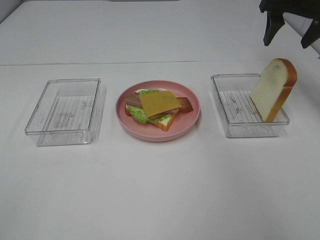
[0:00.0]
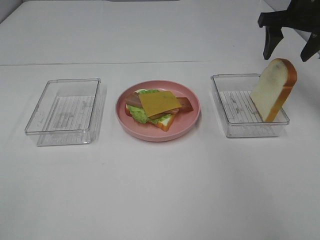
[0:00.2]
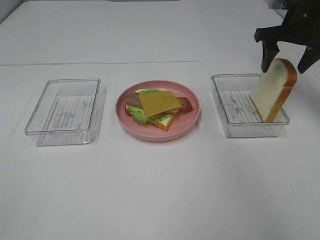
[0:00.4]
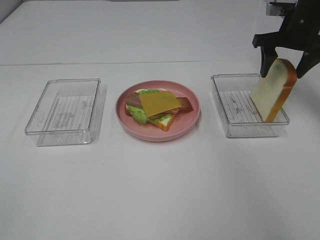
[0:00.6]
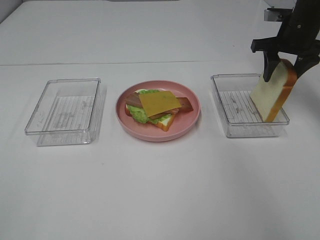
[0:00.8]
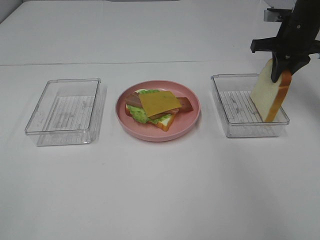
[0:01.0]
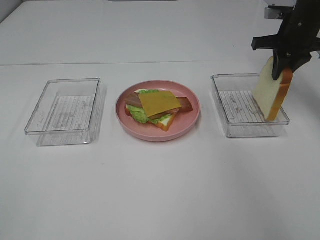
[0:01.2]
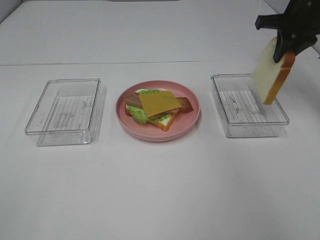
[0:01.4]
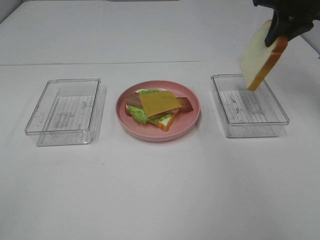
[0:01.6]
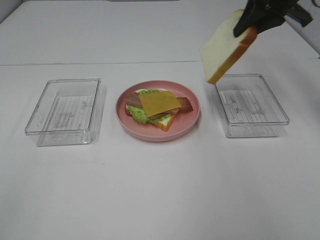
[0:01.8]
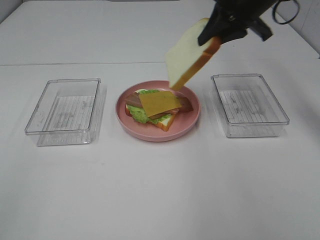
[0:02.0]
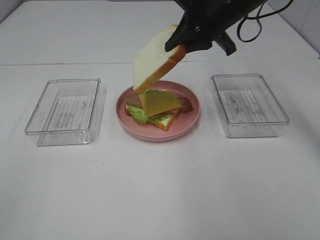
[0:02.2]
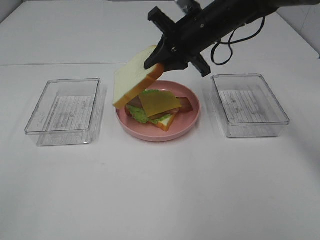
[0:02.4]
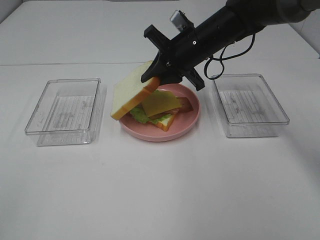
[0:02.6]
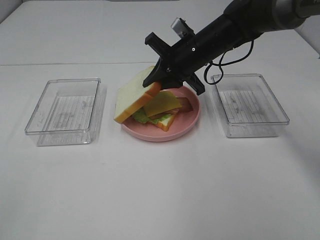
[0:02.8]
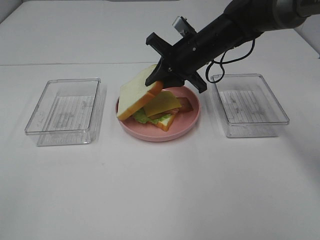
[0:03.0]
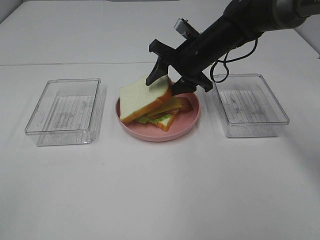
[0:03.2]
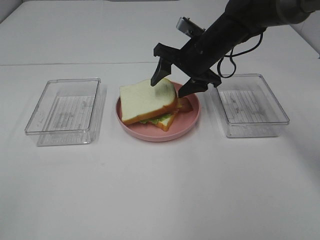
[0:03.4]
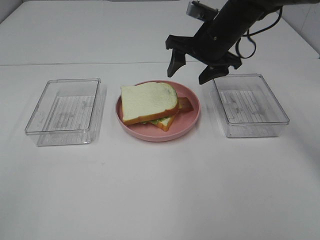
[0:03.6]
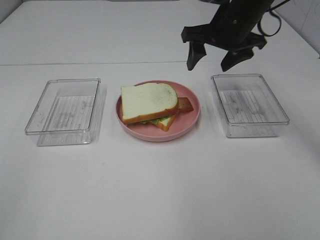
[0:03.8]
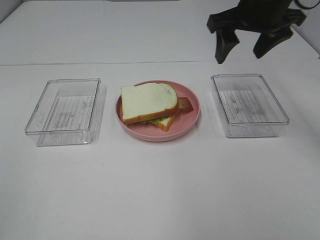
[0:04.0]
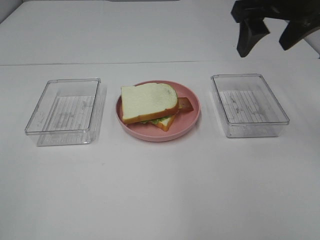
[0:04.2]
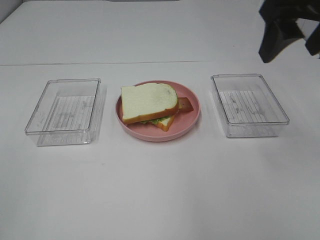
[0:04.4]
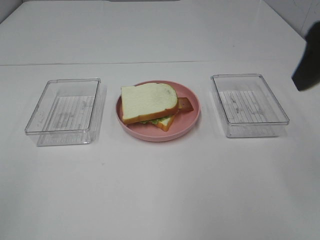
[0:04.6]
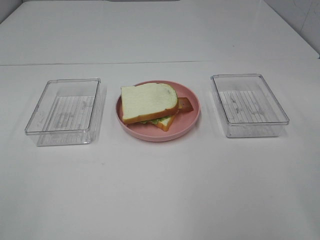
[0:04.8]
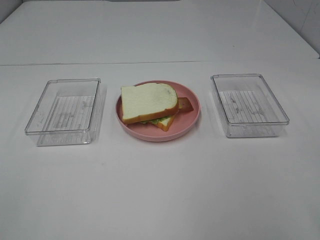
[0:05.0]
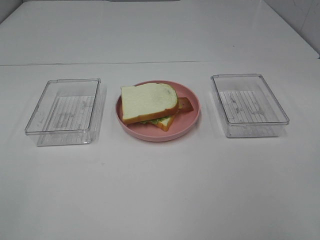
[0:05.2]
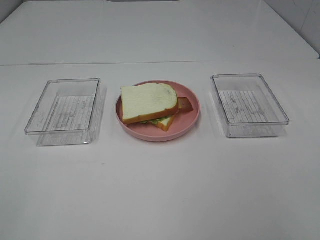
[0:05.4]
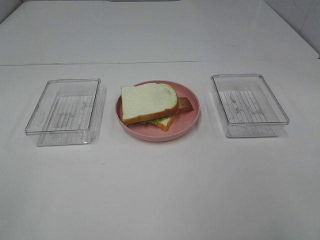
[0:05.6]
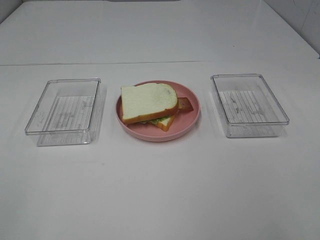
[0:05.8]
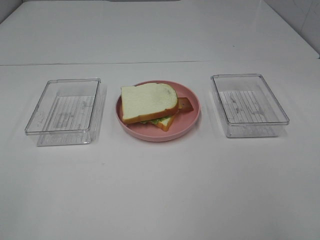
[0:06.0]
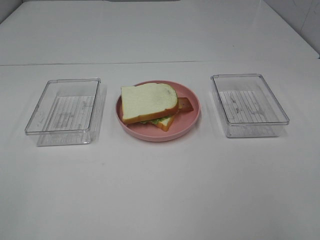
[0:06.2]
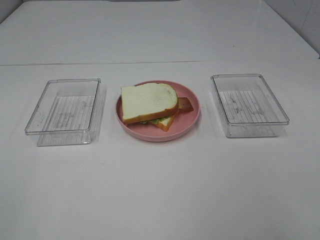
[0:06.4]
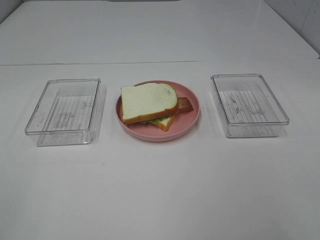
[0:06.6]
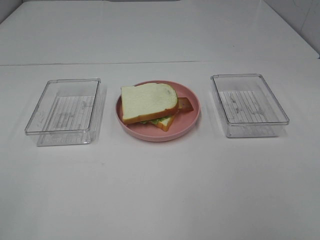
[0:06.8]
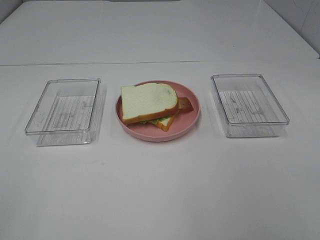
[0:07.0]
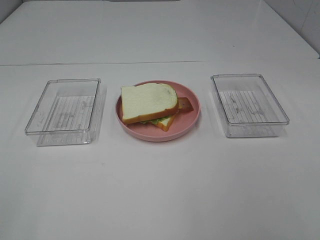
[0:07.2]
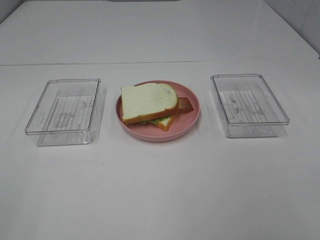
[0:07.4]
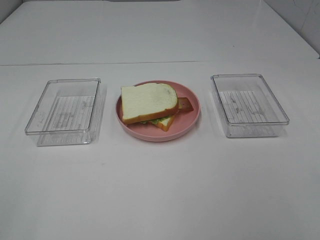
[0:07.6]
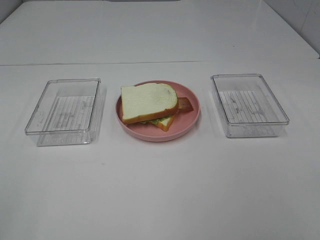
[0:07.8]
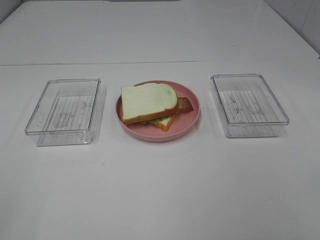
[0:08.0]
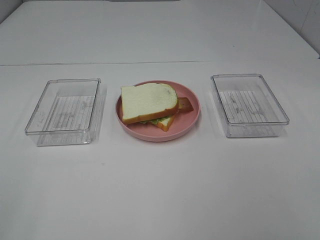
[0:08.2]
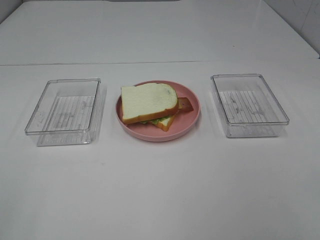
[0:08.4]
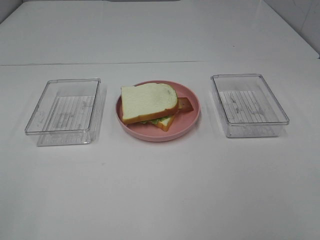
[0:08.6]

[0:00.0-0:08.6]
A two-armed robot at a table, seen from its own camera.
Task of the whole recording: Make sandwiches.
Step, 0:00.0 to 0:01.2: Right hand:grab the bread slice.
Step, 0:01.4 to 0:03.6: Right hand:place the bread slice on the cheese slice.
0:00.0 to 0:01.4: The right gripper closes up.
0:01.4 to 0:02.8: The right gripper travels to the left and downward by about 20 cm.
0:02.8 to 0:04.4: The right gripper heads upward, backward and to the right, covering roughly 25 cm, and opens its fingers.
0:04.4 to 0:05.8: The right gripper shifts some 25 cm backward.

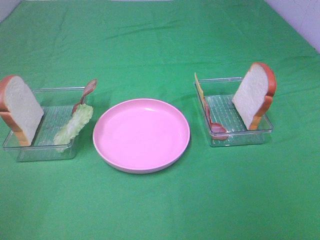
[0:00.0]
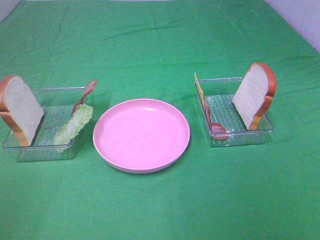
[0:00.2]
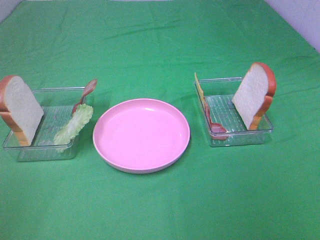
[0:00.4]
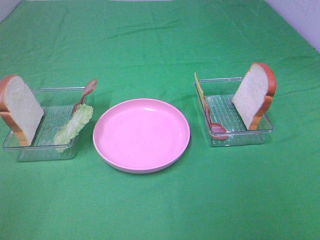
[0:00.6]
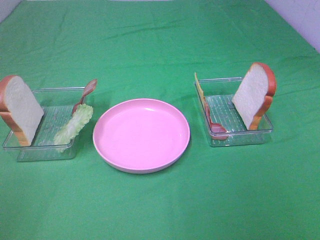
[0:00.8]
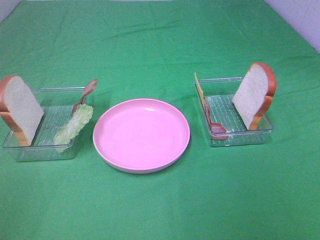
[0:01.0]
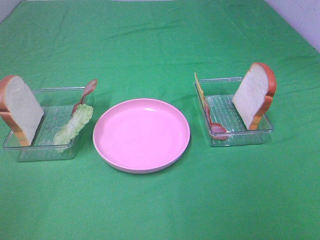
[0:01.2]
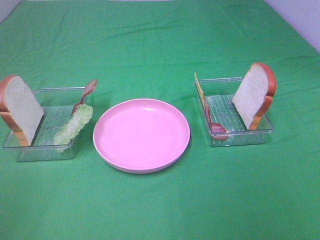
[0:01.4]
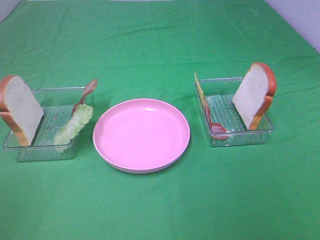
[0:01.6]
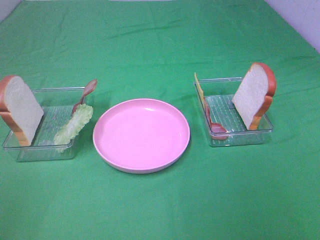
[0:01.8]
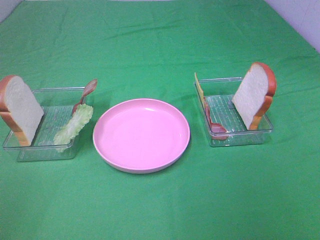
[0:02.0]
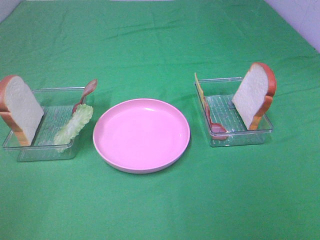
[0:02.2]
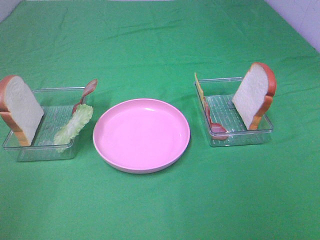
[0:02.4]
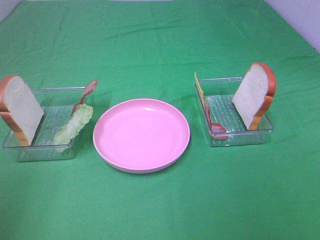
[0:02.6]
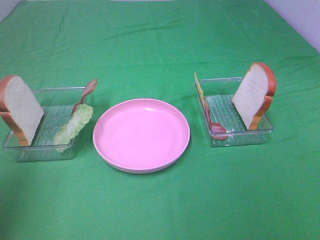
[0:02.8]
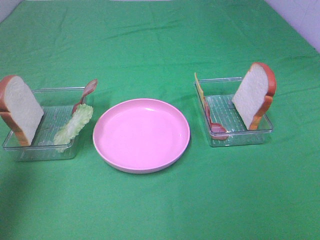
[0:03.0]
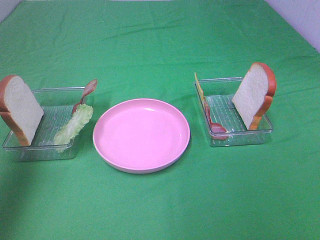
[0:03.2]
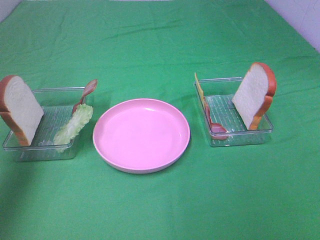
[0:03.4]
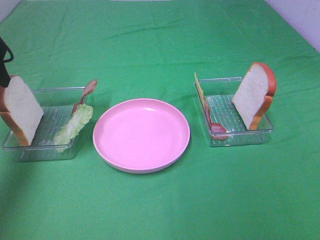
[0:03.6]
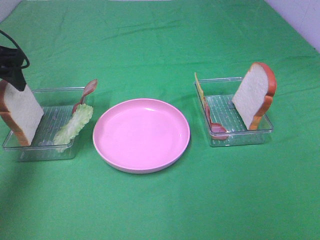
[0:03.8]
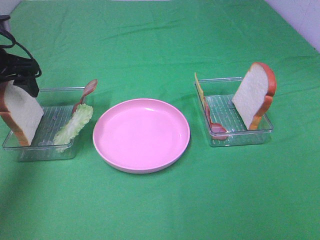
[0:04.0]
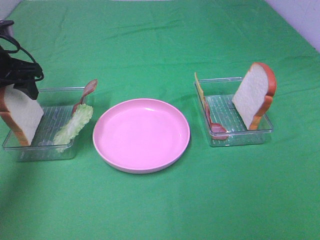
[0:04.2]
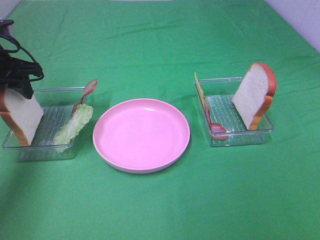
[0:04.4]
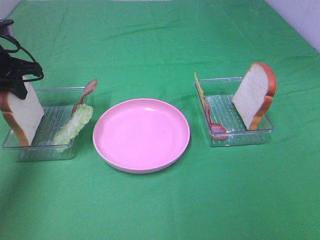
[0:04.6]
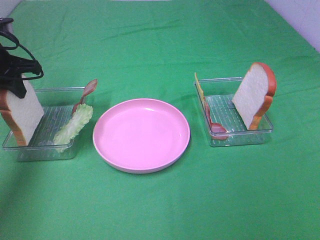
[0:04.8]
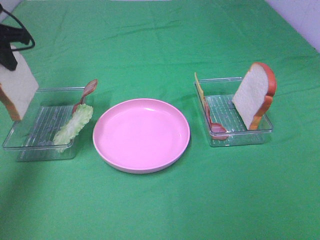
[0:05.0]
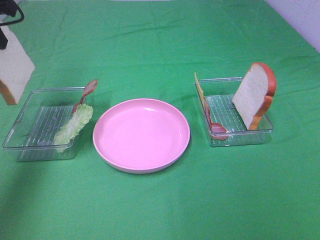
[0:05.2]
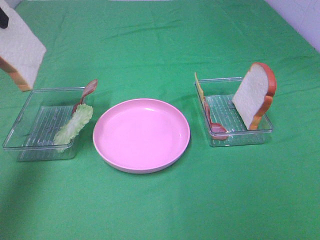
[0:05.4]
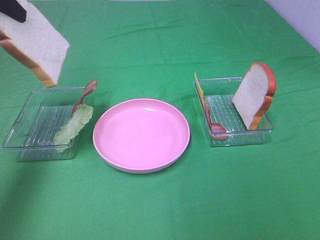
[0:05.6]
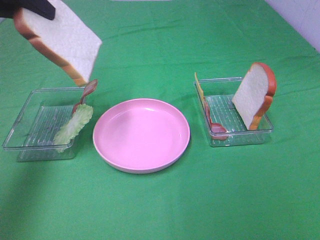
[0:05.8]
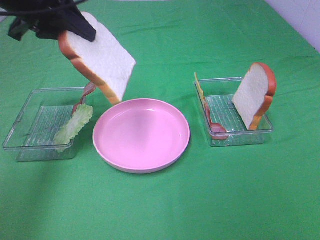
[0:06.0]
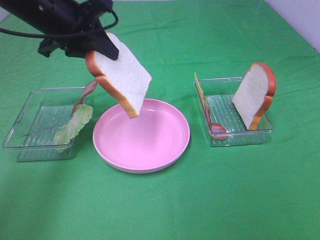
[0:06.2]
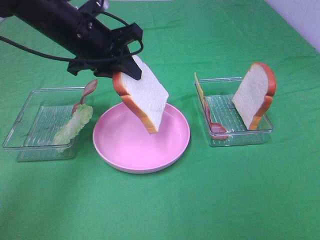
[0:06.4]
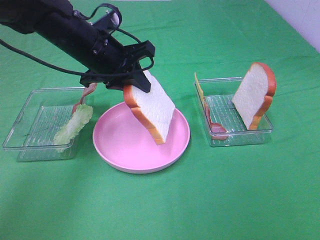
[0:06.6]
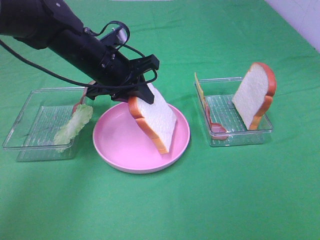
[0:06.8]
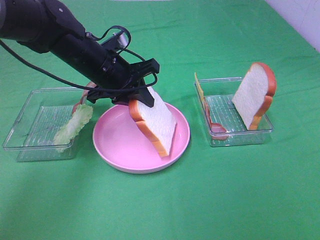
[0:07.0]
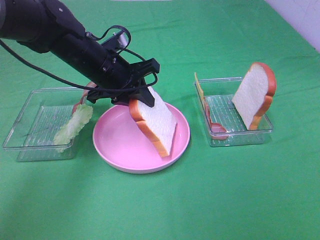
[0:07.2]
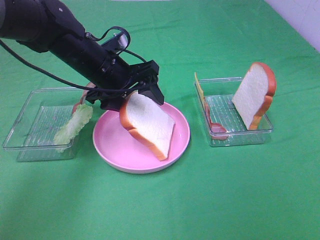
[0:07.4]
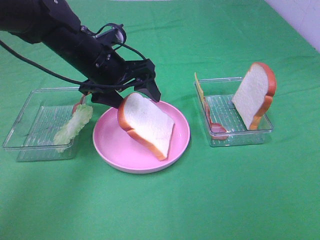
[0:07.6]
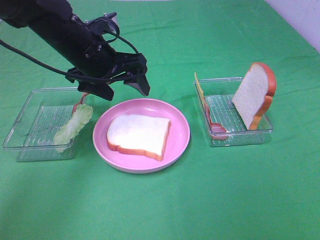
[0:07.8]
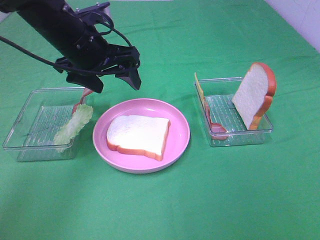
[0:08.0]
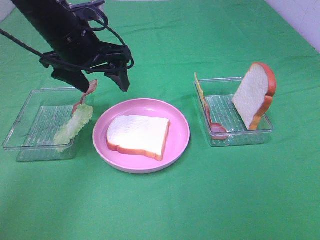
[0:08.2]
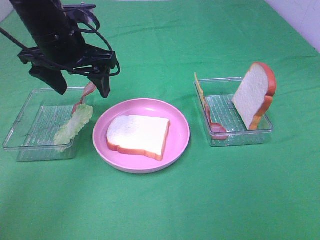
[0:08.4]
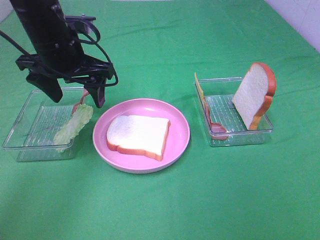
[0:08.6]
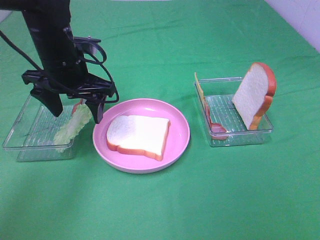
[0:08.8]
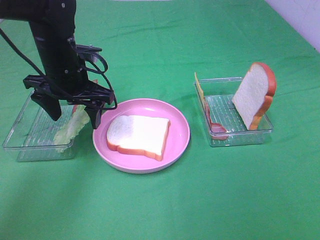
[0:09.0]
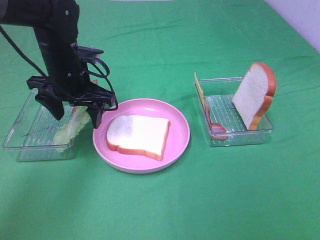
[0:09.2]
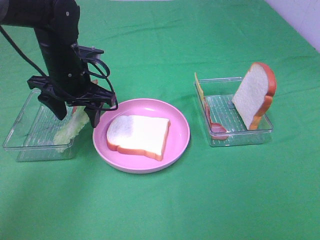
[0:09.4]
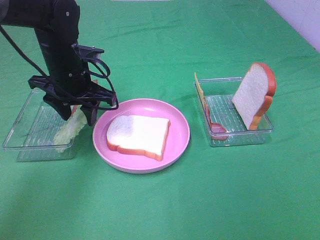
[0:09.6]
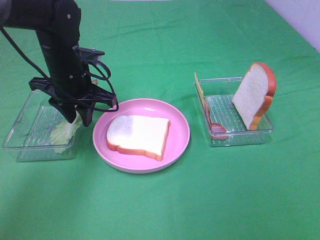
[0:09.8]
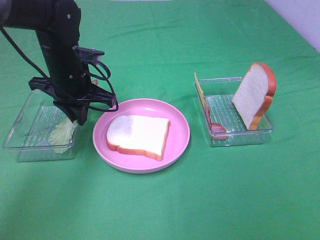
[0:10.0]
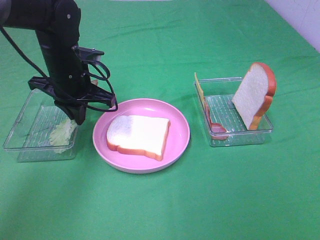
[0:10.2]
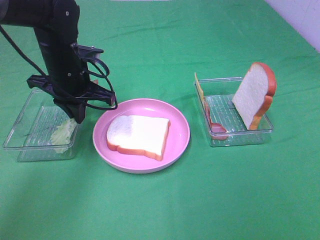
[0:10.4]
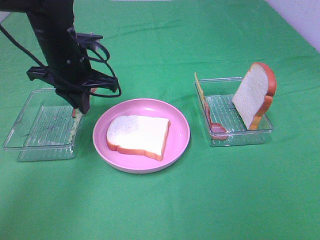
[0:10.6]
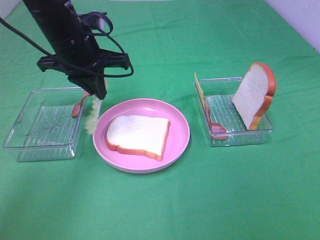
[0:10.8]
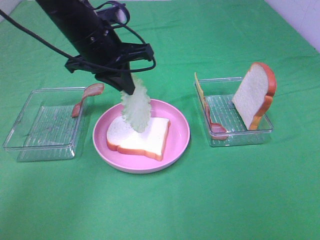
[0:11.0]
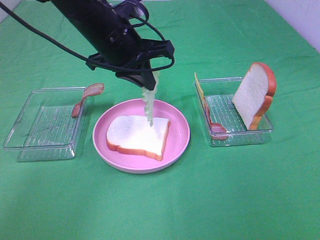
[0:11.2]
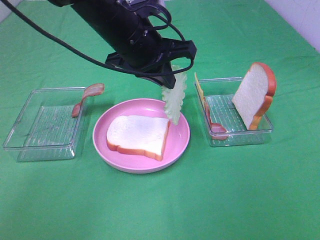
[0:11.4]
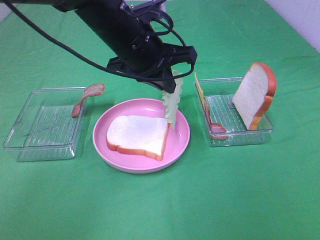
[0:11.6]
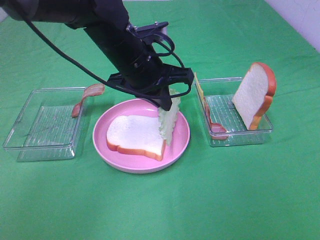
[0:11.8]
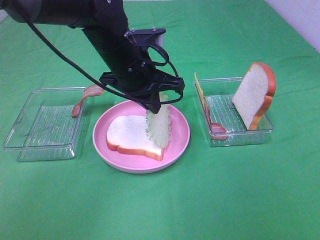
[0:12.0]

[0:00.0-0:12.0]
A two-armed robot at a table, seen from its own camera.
Task of the whole recording: Make sandwiches.
Step, 0:00.0 to 0:04.6: Left hand:grab the bread slice.
Step, 0:04.8 to 0:07.8: Left hand:place the bread slice on the plate.
Step, 0:08.0 to 0:10.2: Left hand:grab the lettuce slice.
0:00.0 to 0:01.6: Neither gripper changes place.
0:01.6 to 0:03.0: The left gripper moves forward, some 20 cm.
0:03.0 to 0:04.4: The left gripper goes about 25 cm forward and downward, and closes.
0:04.4 to 0:06.0: The left gripper is displaced to the right and upward by about 15 cm.
0:06.0 to 0:07.6: The left gripper is displaced downward and to the right by approximately 15 cm, and opens its fingers.
0:09.0 to 0:10.4: The left gripper closes.
0:10.4 to 0:12.0: The left gripper is displaced to the right by some 10 cm.

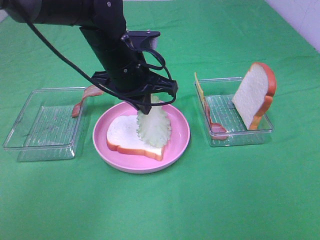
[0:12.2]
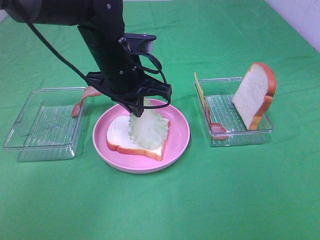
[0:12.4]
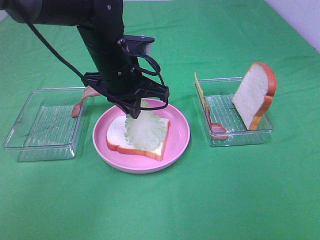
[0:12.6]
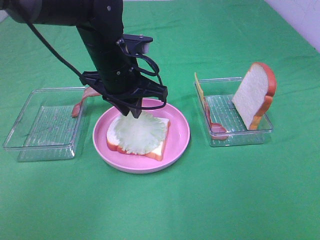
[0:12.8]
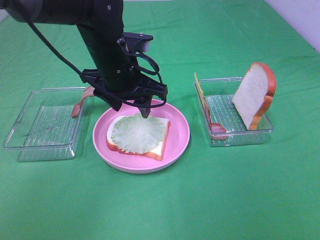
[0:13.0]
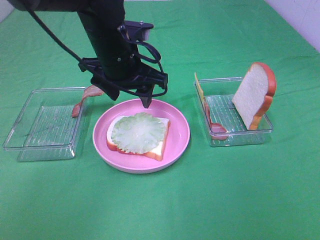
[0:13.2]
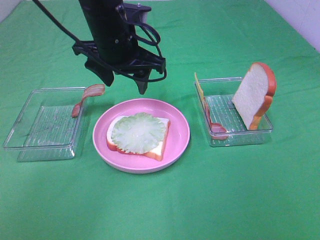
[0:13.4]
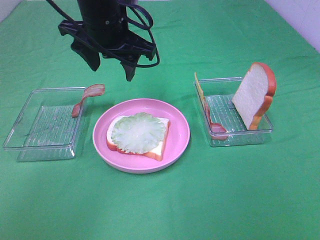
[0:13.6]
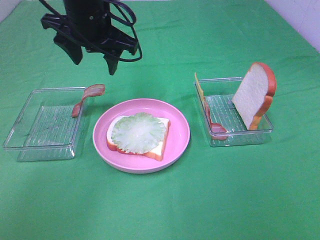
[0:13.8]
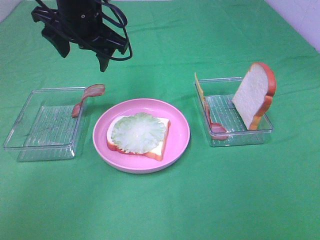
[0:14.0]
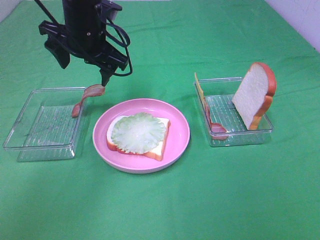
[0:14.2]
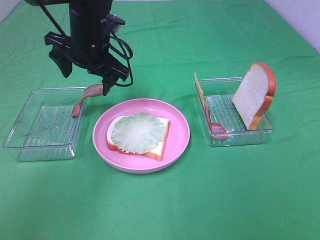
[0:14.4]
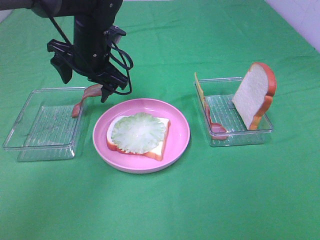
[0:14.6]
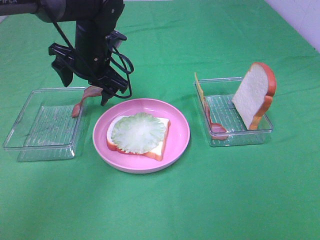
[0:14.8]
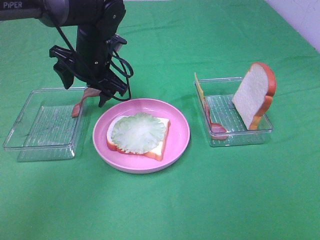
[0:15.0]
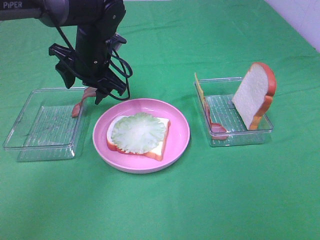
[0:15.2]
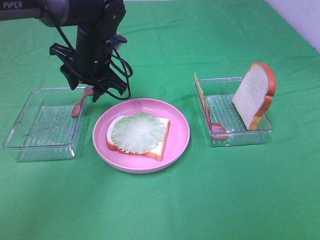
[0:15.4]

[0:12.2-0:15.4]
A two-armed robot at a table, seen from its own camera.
Task of the whole recording: Make sandwiches.
0:12.2 to 0:13.8: The left gripper goes some 5 cm upward, and opens up.
0:13.8 to 0:15.4: The left gripper moves downward, about 10 cm.
